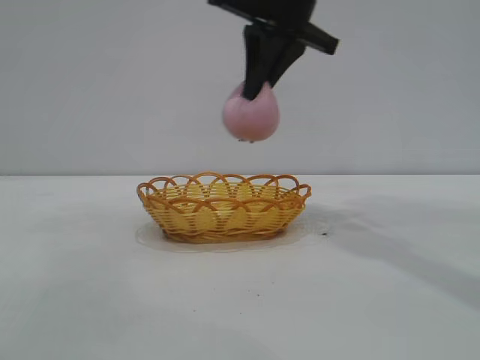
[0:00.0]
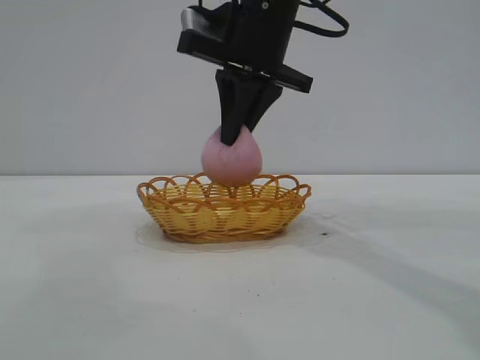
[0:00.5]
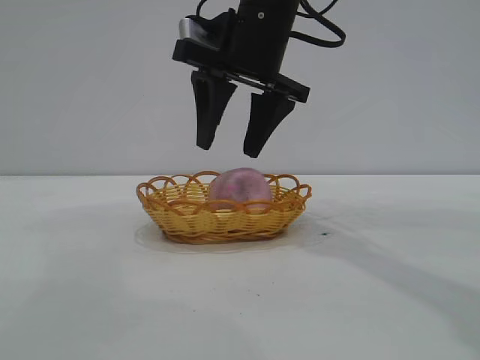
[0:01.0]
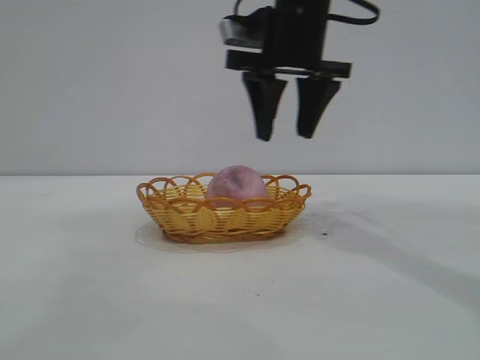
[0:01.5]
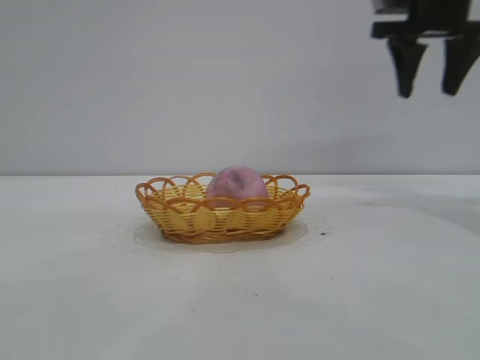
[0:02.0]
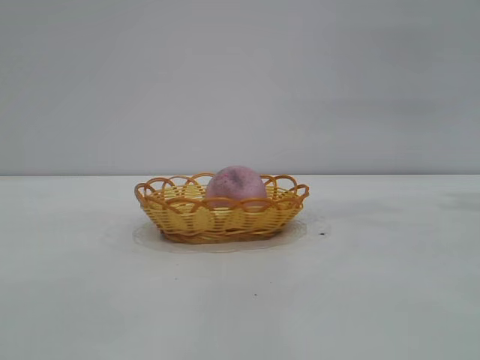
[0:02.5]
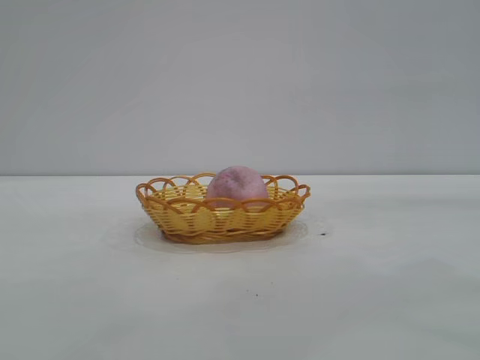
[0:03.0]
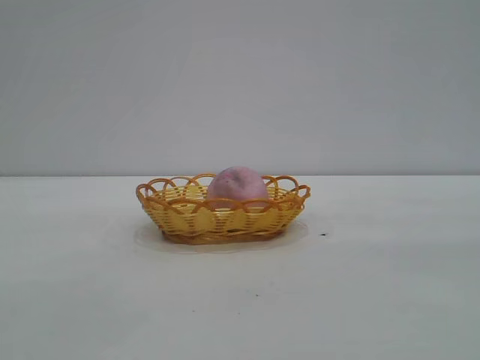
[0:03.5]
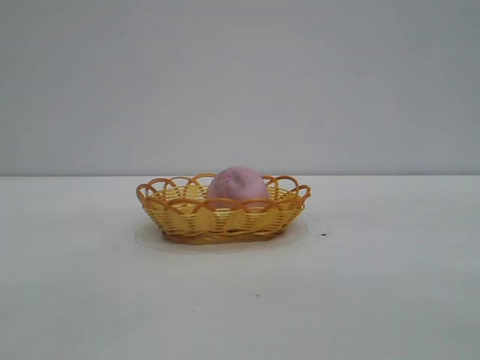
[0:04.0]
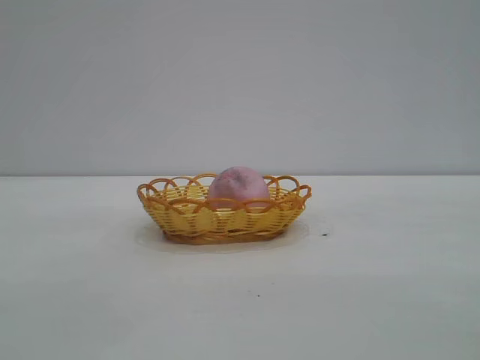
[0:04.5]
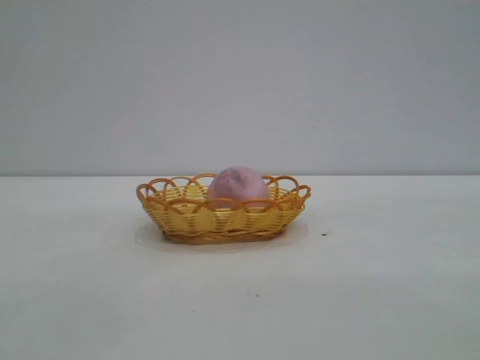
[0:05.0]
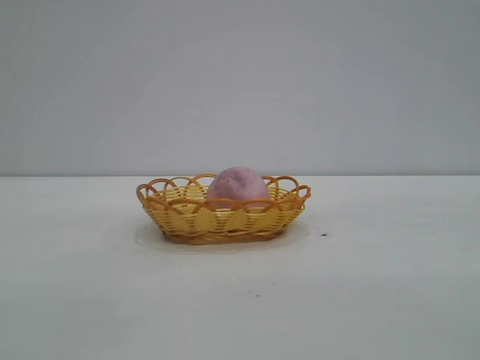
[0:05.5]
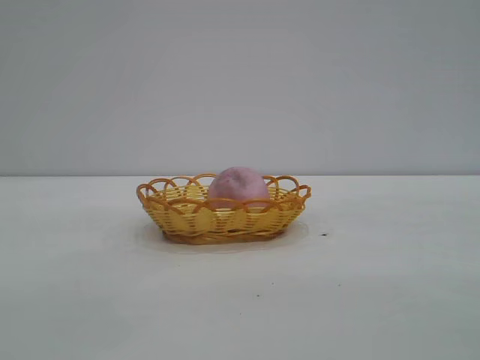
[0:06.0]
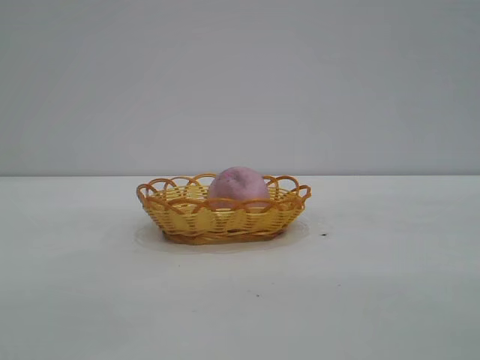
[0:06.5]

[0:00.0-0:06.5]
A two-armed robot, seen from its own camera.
Task of the whole recording: pick up the peach and put it into the basket.
Step, 0:00.0 to 0:01.5: place the peach into the basket.
